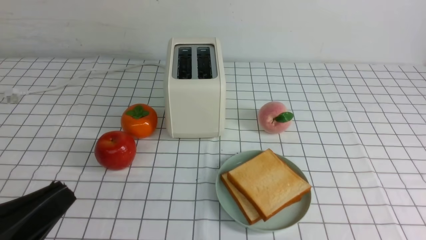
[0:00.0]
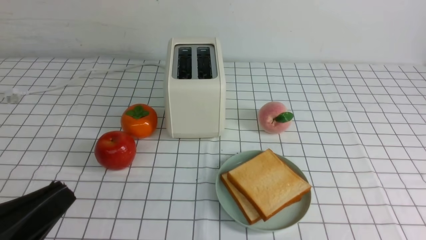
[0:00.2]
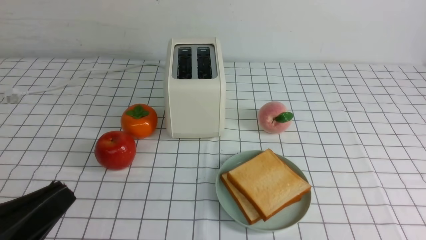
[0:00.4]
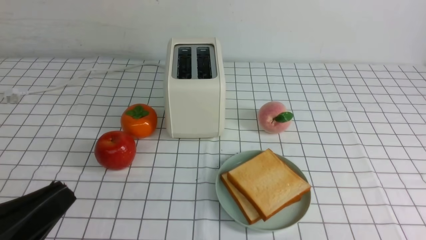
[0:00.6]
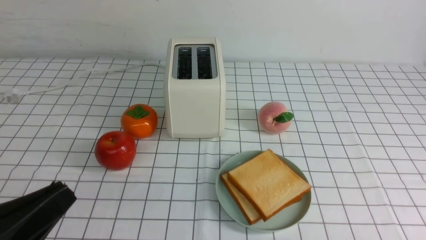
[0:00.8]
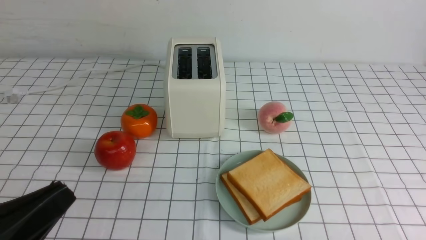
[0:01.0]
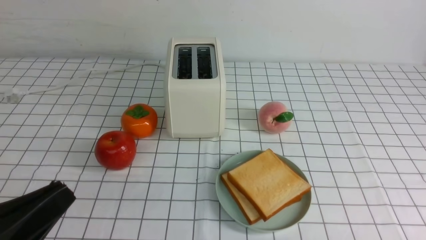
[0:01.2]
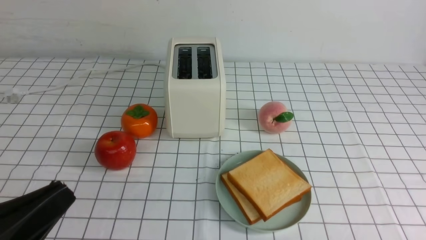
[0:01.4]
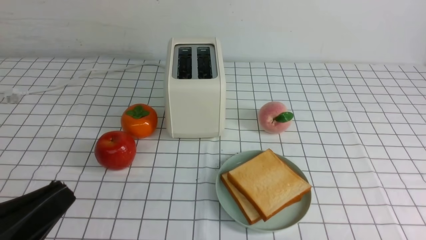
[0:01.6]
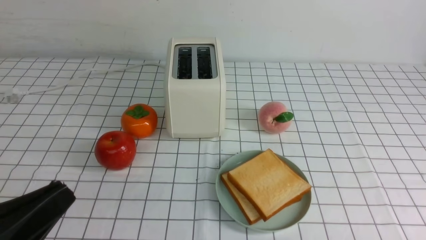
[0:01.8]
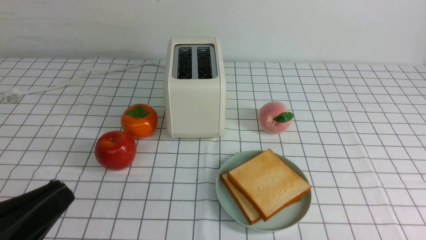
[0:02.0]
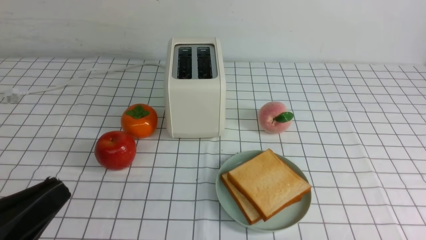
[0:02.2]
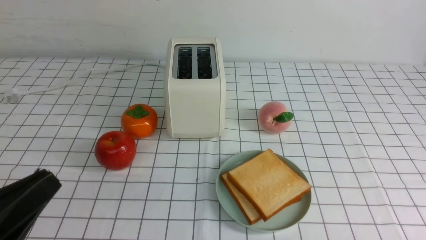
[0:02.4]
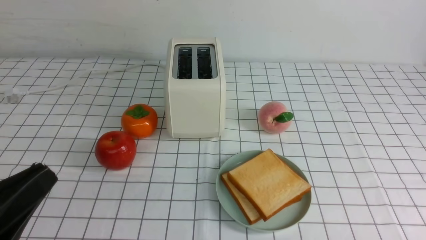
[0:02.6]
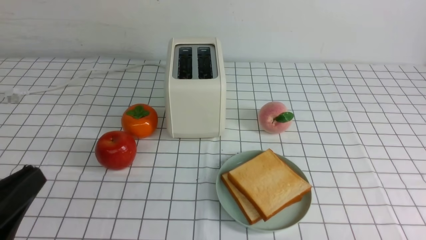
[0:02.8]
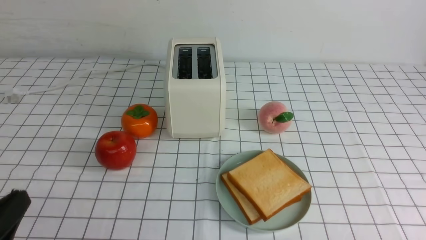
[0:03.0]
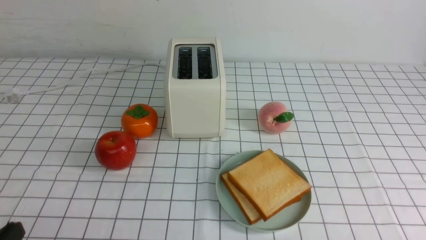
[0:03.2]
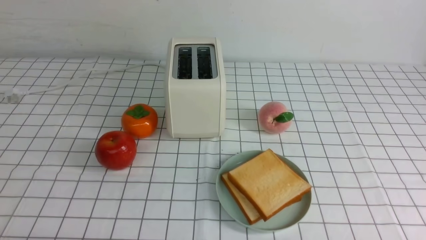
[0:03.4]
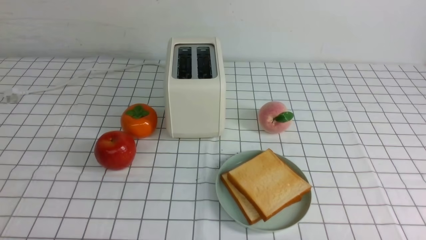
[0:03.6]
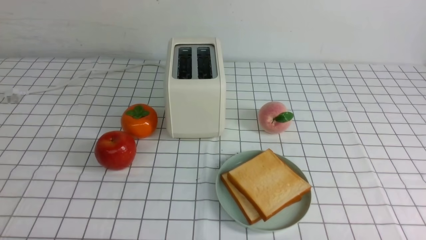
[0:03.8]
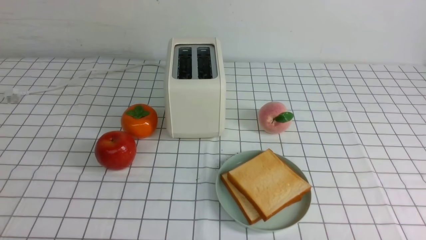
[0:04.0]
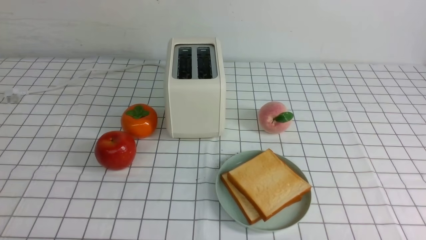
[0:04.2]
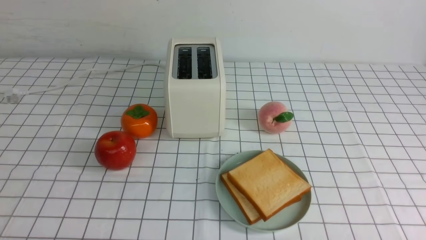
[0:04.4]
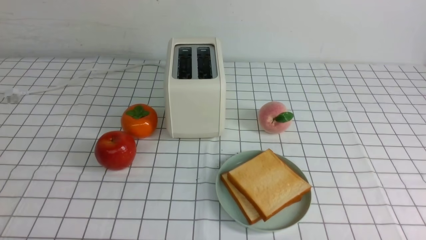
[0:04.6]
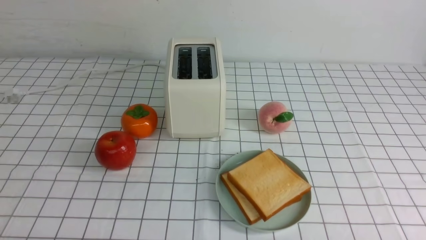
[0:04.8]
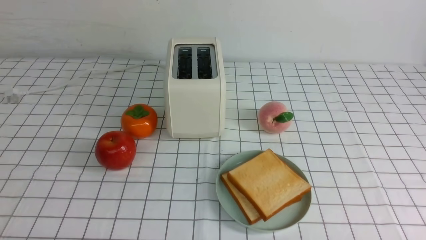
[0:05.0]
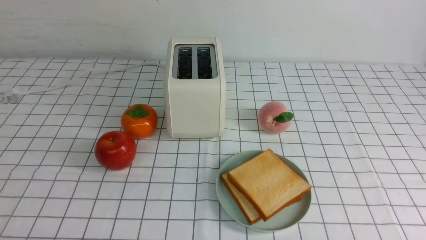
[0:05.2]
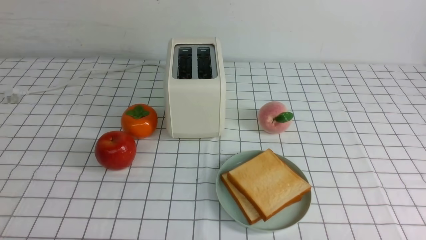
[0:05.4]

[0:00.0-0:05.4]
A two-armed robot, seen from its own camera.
Task of the whole recording: take toasted bread from bread machine on white checkered table place on plate.
0:01.4 to 0:02.8: The grippers stay close to where they were, moving slightly.
0:02.8 to 0:04.0: The left gripper shifts some 10 cm downward.
0:04.0 to 0:05.4: Both grippers stay about where they are.

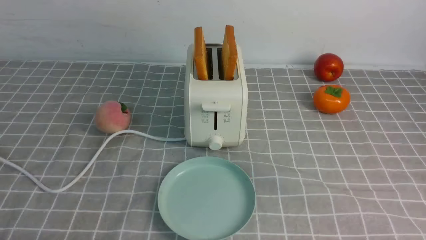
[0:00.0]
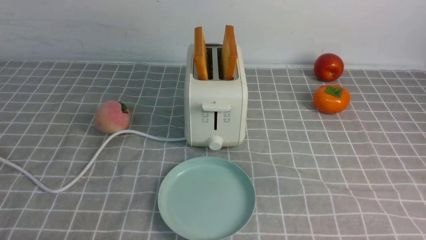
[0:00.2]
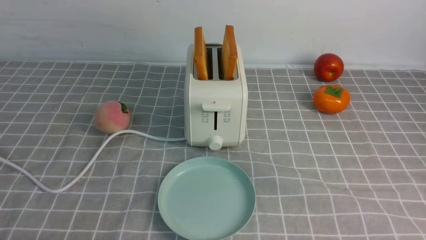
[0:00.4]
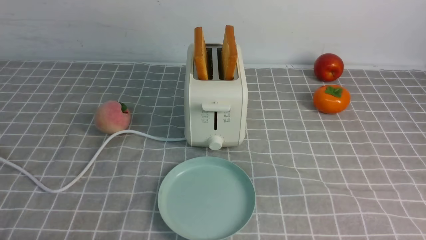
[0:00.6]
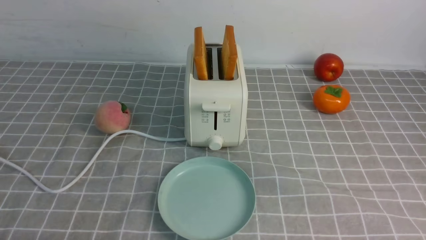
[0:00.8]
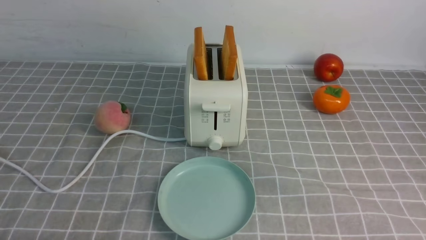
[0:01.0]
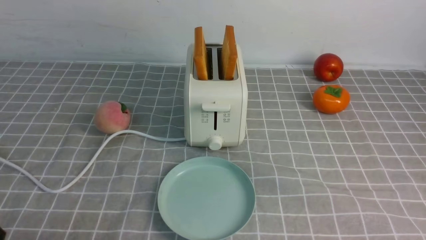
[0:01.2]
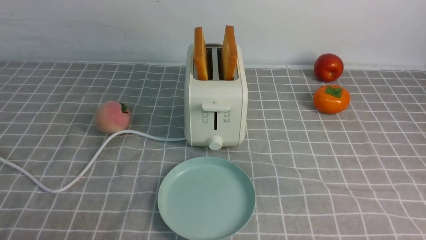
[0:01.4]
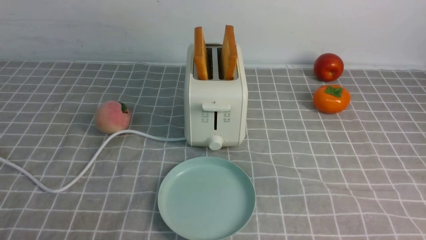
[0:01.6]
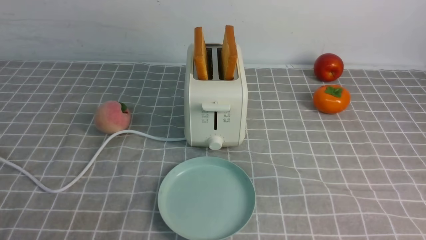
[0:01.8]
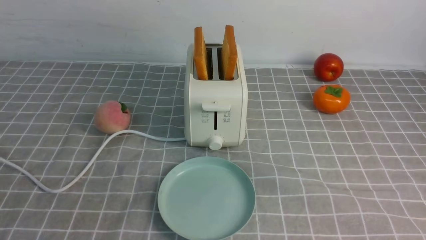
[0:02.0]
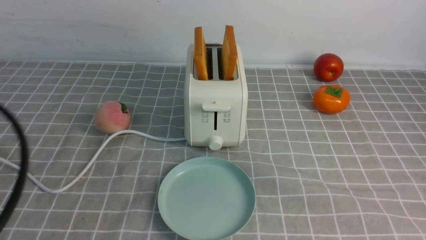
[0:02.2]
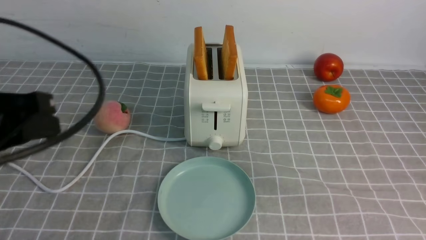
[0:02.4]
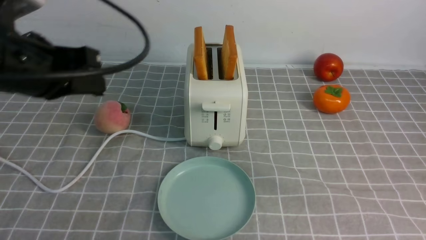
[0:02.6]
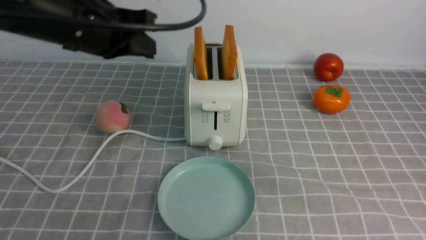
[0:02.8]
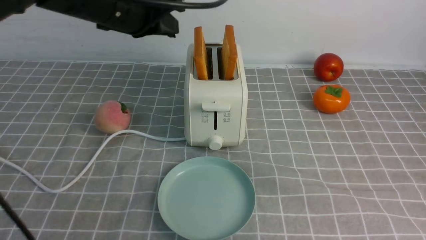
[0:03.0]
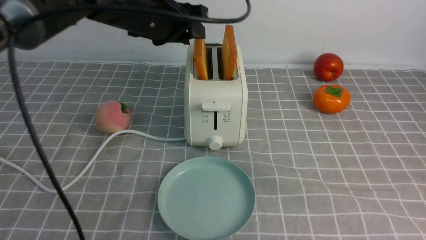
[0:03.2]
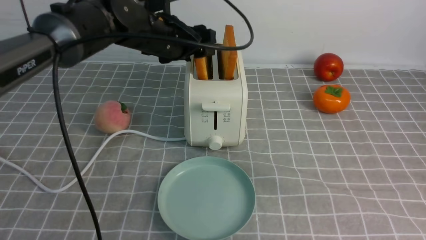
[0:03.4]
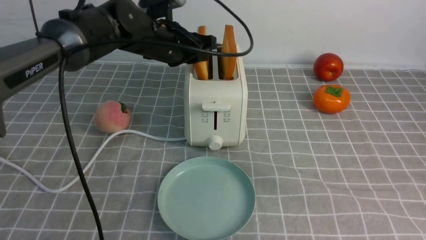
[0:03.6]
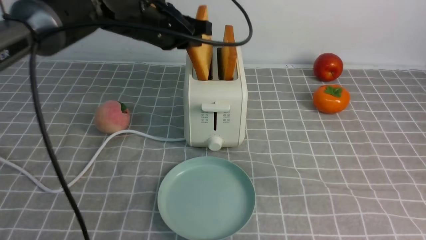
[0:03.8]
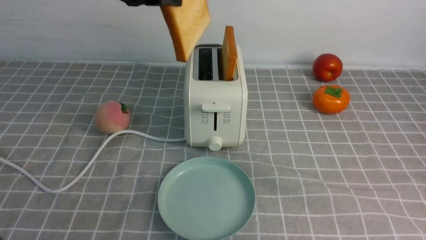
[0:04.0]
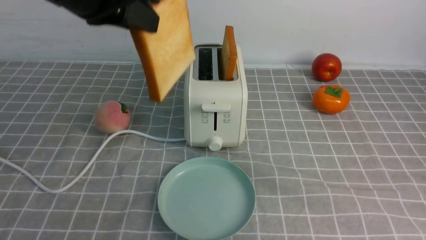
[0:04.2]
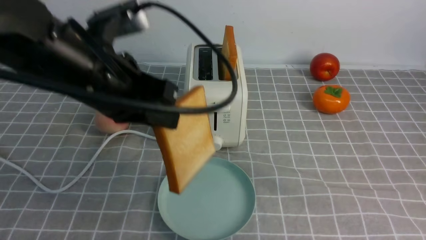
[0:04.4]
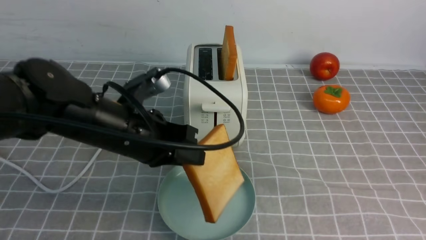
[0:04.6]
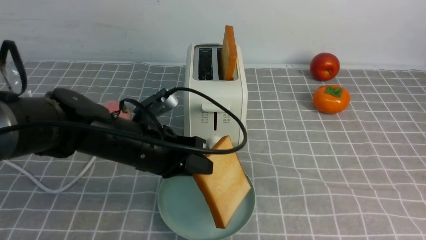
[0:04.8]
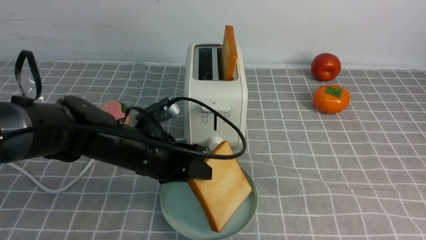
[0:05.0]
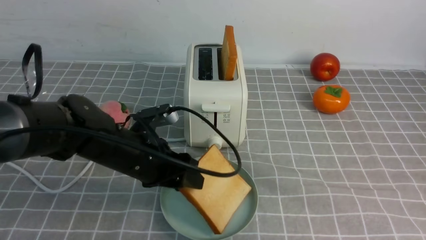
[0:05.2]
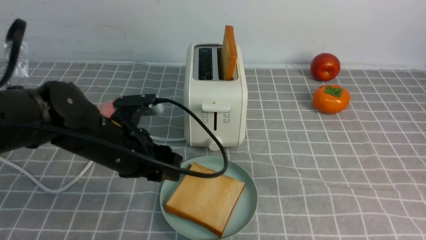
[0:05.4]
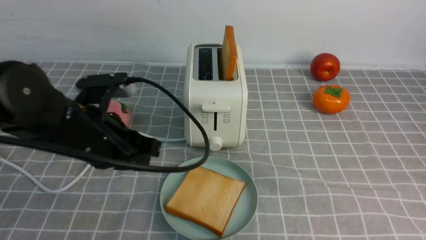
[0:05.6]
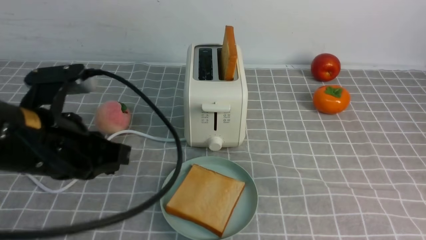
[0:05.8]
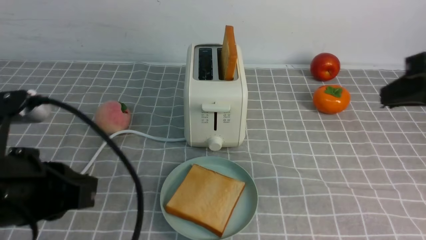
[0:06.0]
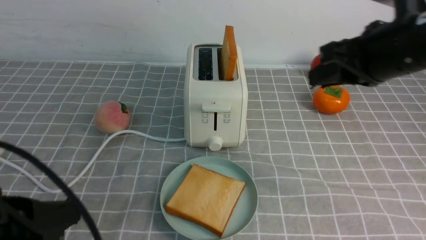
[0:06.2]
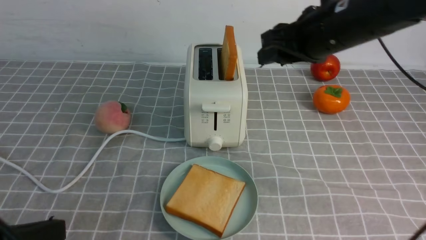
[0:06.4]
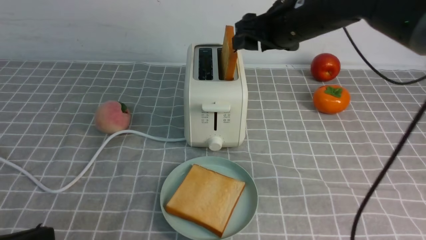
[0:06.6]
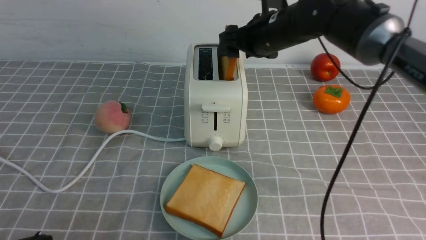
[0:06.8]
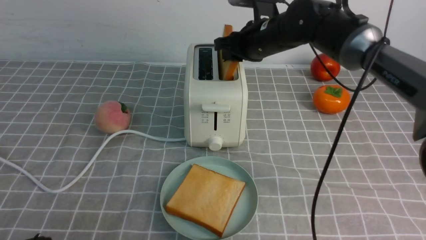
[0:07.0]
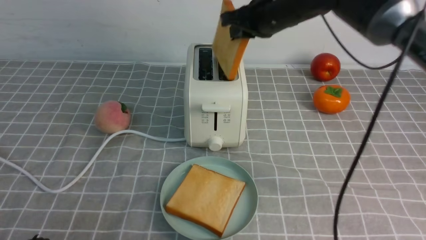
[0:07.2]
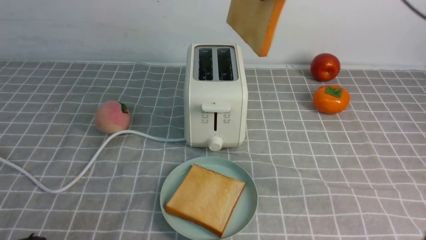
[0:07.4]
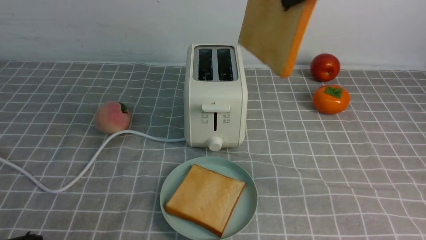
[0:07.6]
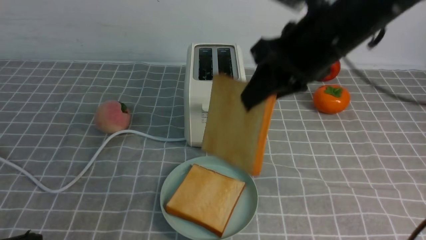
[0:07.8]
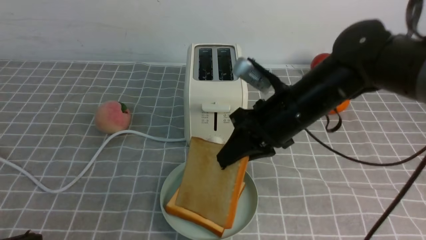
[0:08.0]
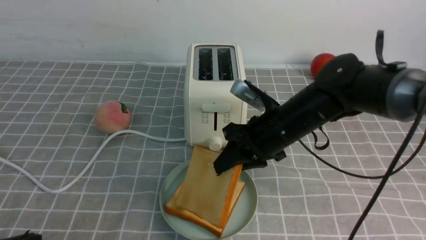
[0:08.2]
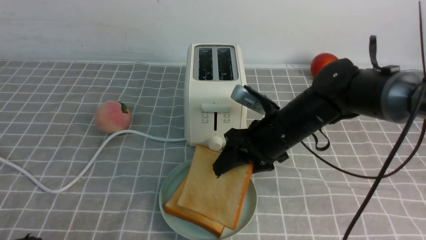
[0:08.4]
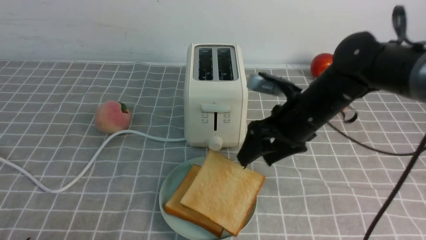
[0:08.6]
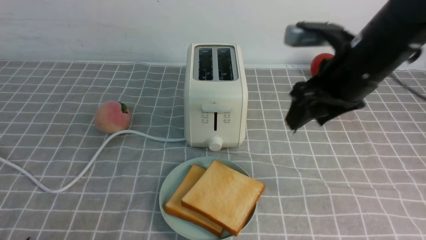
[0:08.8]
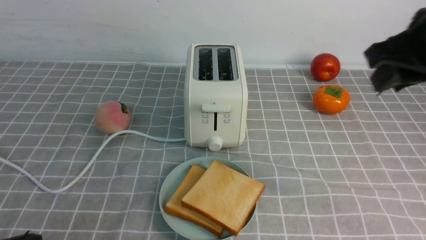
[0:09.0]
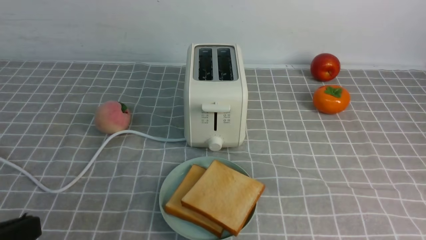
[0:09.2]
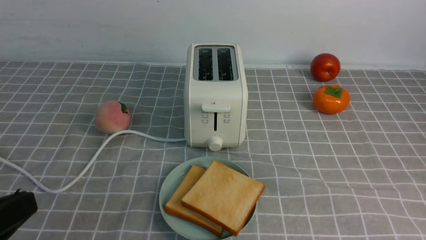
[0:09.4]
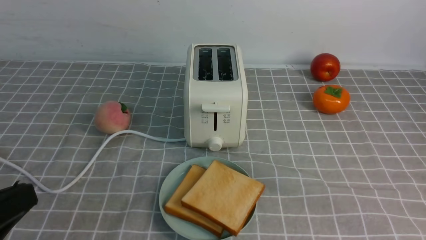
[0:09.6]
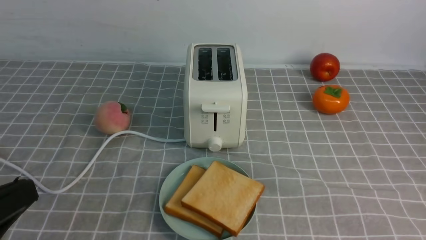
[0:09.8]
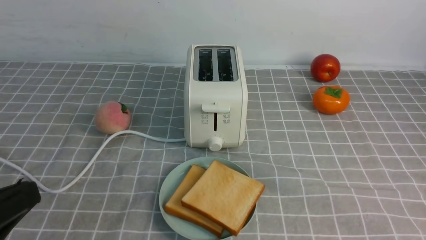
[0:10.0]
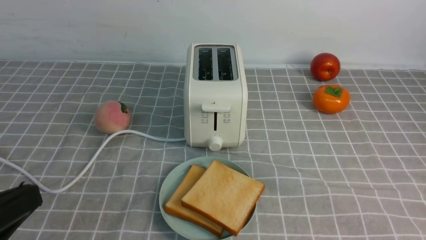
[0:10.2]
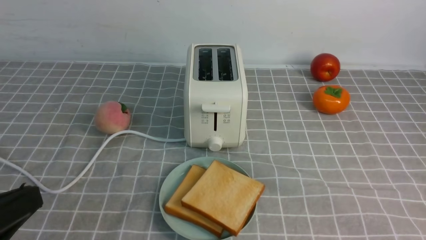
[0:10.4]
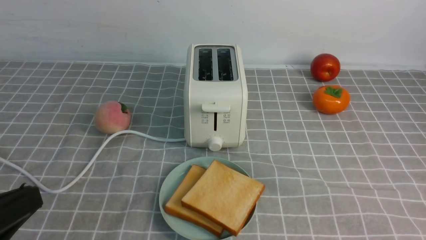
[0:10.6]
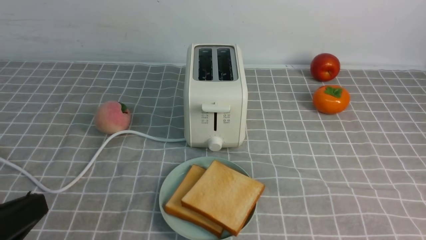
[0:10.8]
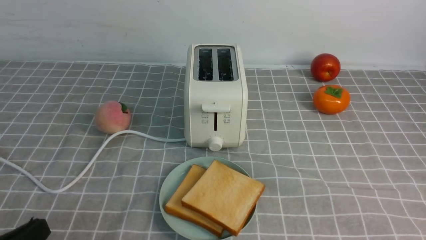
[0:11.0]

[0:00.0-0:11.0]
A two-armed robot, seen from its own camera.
Task of the whole recording: take toasted bread from bread machine on grey coffee table place on plate.
Step, 0:00.0 to 0:04.0: use the left arm to take out a slice of bread.
Step, 0:04.2 to 0:05.4: use the left arm to put a slice of bread into the empty plate.
Step, 0:05.6 to 0:07.2: use the right arm to take out a slice of bread.
Step, 0:07.4 to 0:08.6: use the right arm to put a slice of bread into the plate.
0:01.6 to 0:03.2: The left gripper moves forward and to the right, roughly 40 cm, and opens. Meanwhile the right gripper travels upward and forward by approximately 15 cm, and closes up.
0:03.2 to 0:04.8: The left gripper swings up and down, approximately 20 cm each way, with 2 reversals, and closes up.
0:04.8 to 0:06.2: The right gripper is displaced forward and to the left by some 15 cm; the left gripper heads backward and to the left, covering approximately 20 cm, and opens, then closes once more.
0:06.2 to 0:07.8: The right gripper shifts roughly 10 cm to the left, goes forward and returns, roughly 20 cm each way, and opens, then closes once more. The left gripper heads backward, covering about 5 cm.
0:07.8 to 0:09.4: The right gripper moves backward and to the right, about 25 cm, and opens, then closes again.
